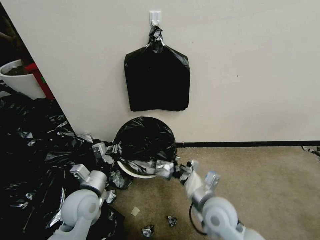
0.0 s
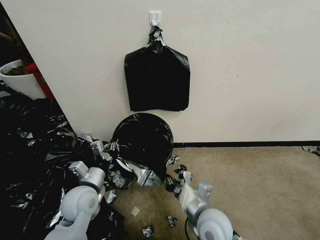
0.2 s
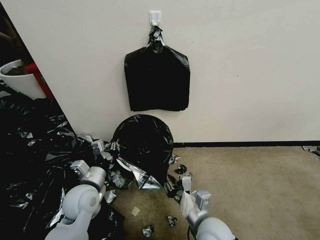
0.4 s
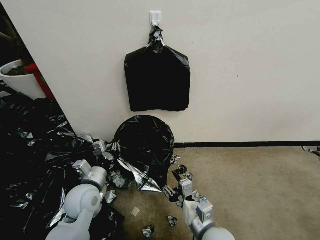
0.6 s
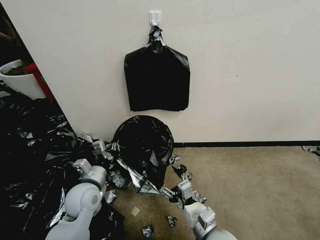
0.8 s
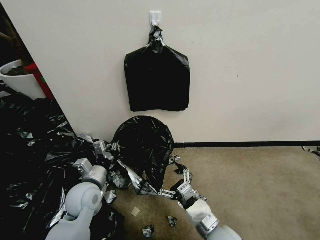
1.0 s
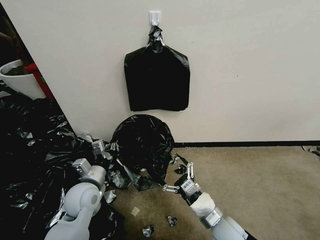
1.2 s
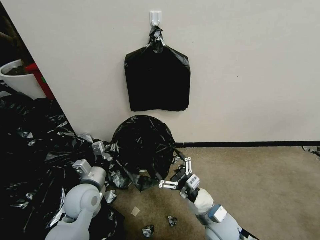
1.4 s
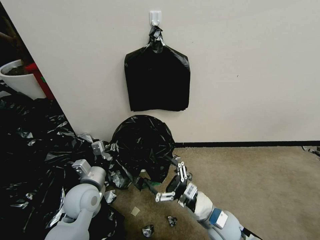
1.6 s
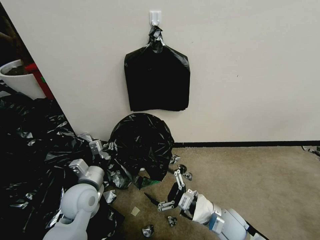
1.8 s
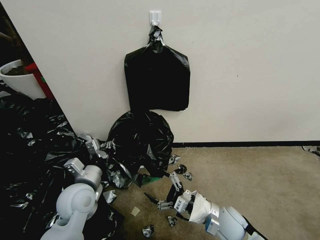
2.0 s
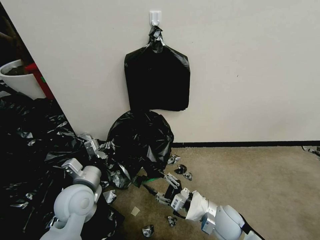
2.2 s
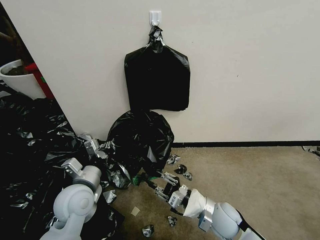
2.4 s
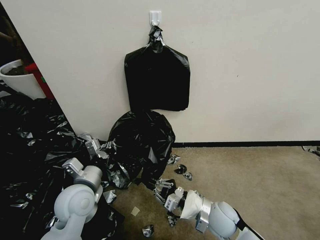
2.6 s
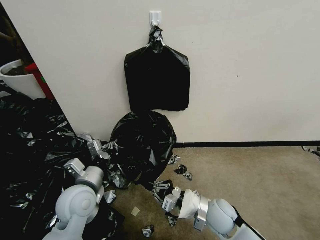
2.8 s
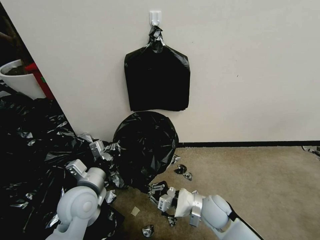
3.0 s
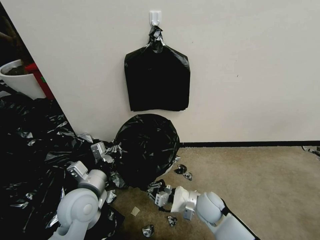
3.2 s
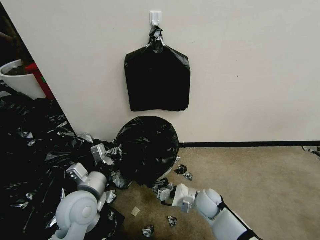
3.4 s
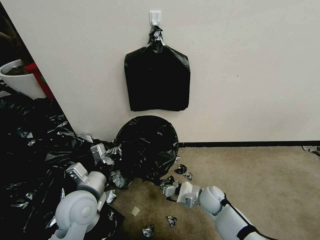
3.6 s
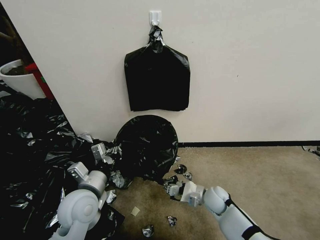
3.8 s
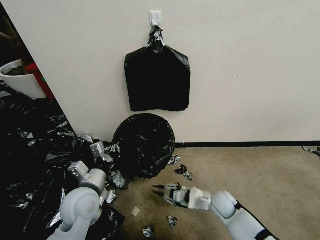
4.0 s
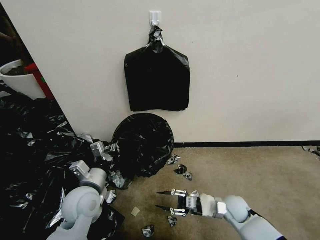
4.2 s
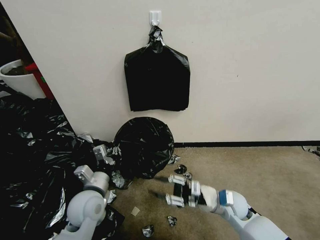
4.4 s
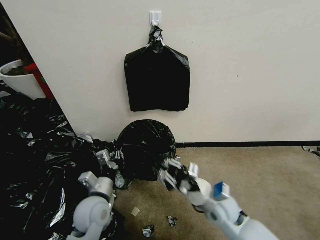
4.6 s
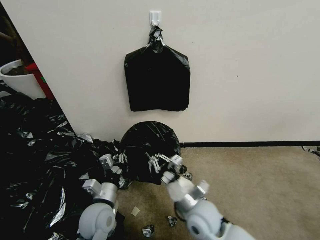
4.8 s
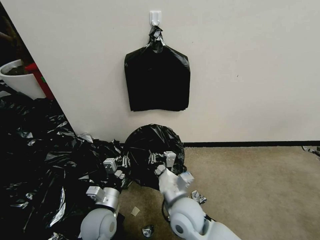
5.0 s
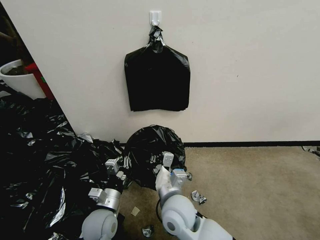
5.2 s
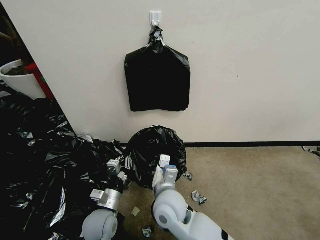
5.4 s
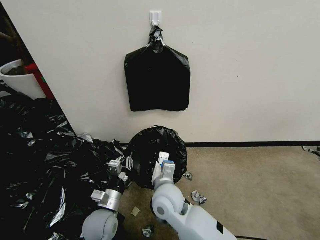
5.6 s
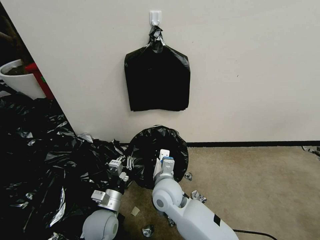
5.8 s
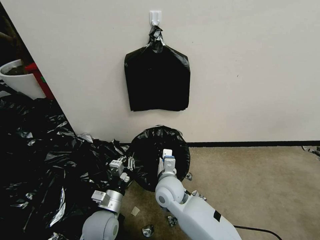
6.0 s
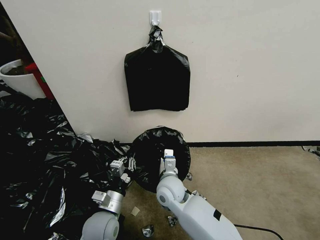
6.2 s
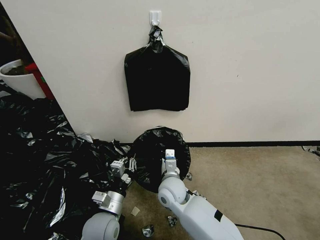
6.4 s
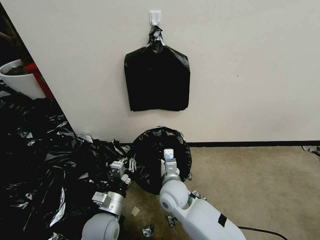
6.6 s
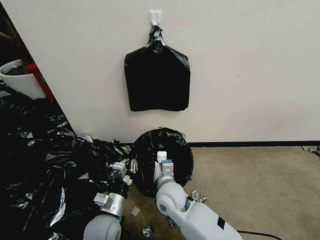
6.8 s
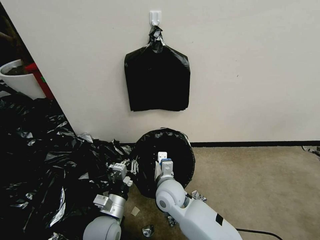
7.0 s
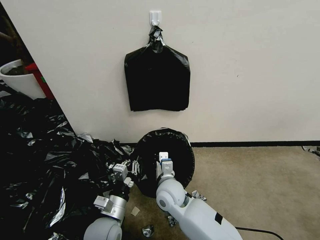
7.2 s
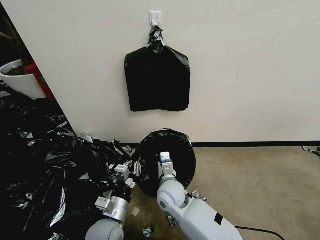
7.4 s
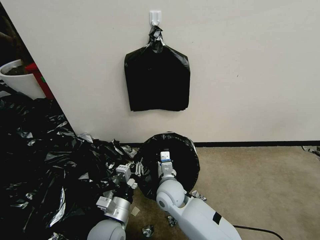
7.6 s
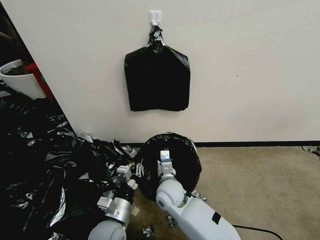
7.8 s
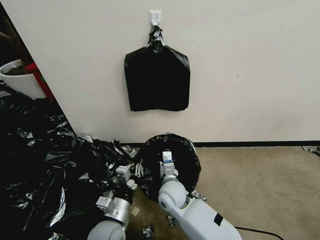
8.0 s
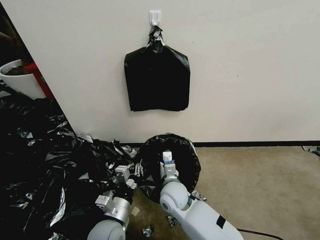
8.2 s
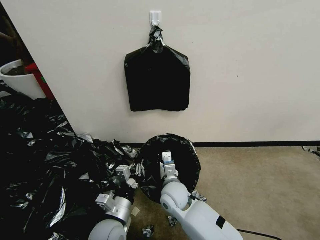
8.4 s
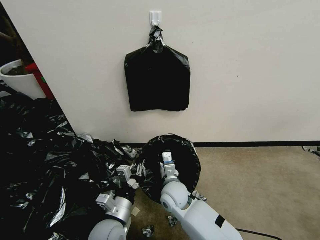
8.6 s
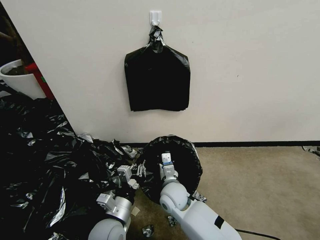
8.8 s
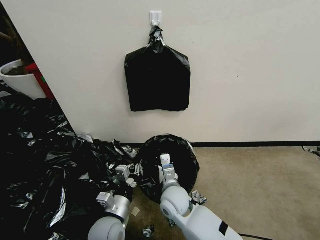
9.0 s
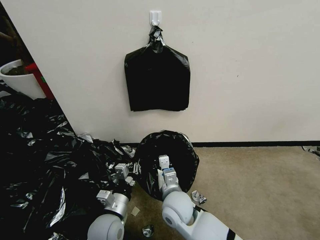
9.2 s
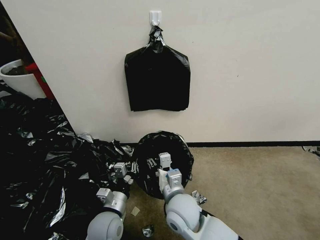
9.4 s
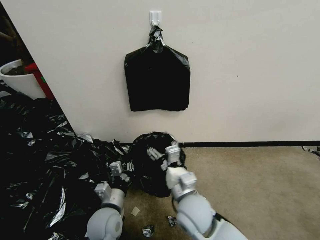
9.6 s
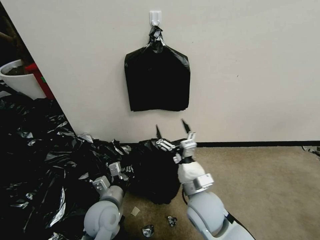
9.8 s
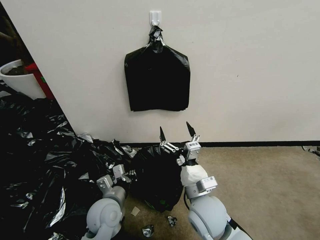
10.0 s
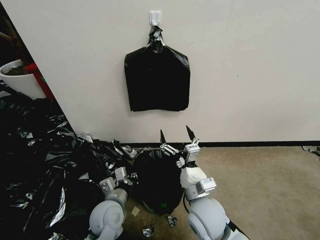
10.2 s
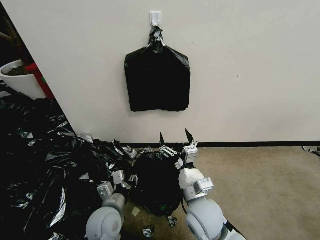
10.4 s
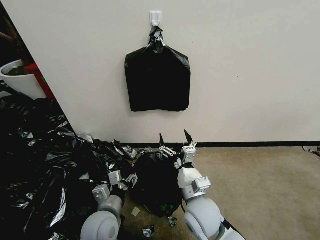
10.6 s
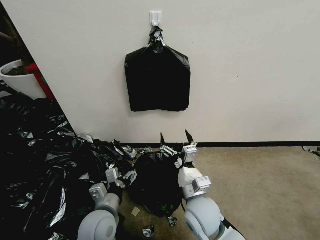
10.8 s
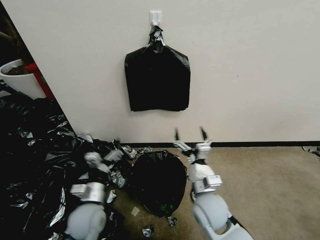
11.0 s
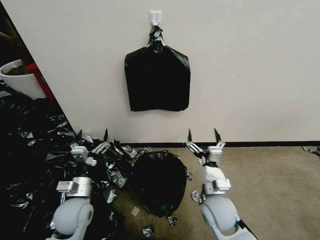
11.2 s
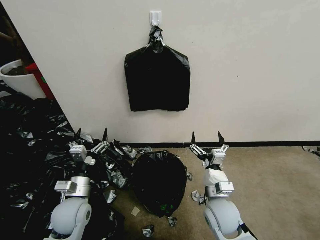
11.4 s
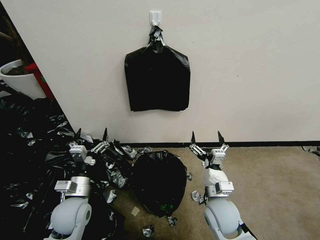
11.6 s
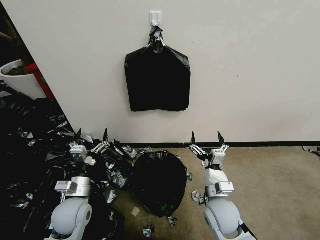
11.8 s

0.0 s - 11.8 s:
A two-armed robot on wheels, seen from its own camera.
Task of the whole recording: Place a trash bag onto the trash bin.
0.0 s - 1.4 s: The right gripper goes about 5 cm downward, and opens its fingers.
1.4 s - 3.0 s: The right gripper goes some 5 cm forward, and closes its fingers, while the left gripper moves roughly 5 cm.
3.0 s - 4.4 s: The right gripper moves to the right, some 5 cm, and opens.
4.4 s - 6.0 s: The left gripper travels downward by approximately 5 cm, while the right gripper is displaced to the left by about 20 cm, and closes up.
6.0 s - 8.8 s: The grippers make only small movements.
8.8 s - 10.4 s: The right gripper is displaced upward, backward and to the right by some 15 cm, and opens up.
10.4 s - 11.8 s: The right gripper is displaced to the right by roughly 5 cm, while the left gripper moves to the left, approximately 10 cm, and opens its fingers.
